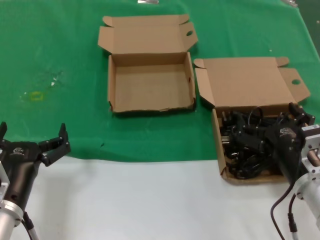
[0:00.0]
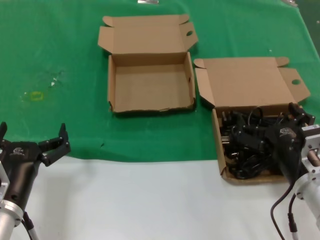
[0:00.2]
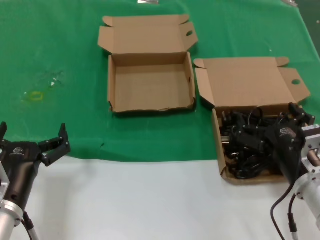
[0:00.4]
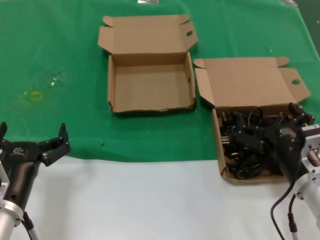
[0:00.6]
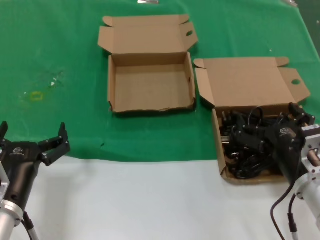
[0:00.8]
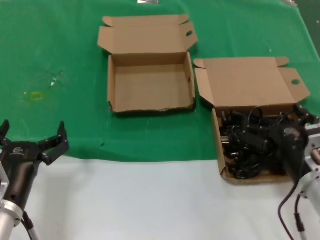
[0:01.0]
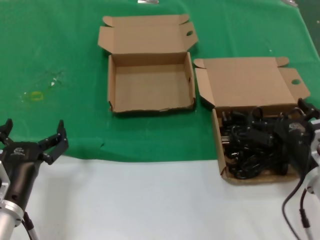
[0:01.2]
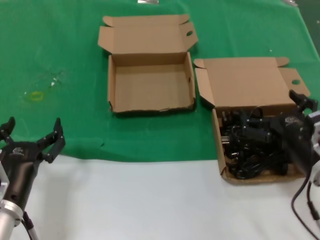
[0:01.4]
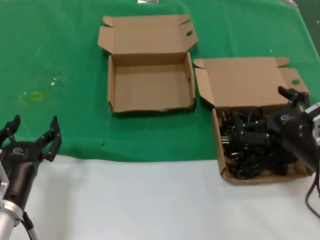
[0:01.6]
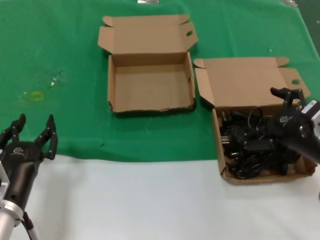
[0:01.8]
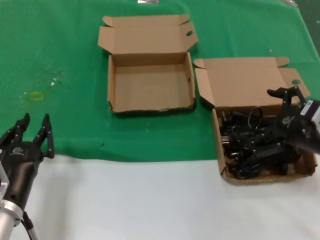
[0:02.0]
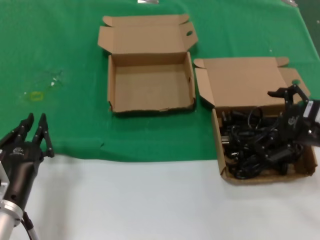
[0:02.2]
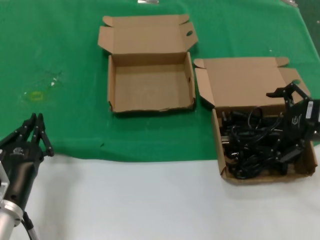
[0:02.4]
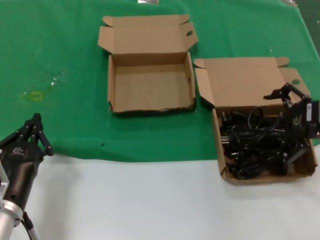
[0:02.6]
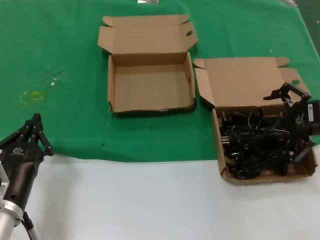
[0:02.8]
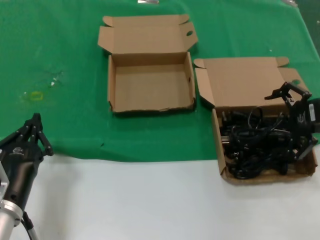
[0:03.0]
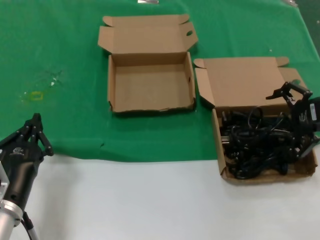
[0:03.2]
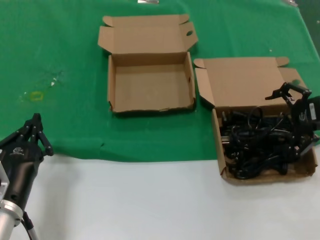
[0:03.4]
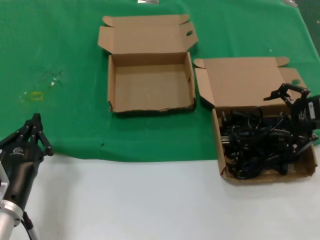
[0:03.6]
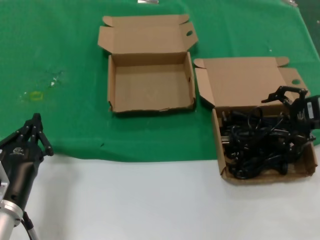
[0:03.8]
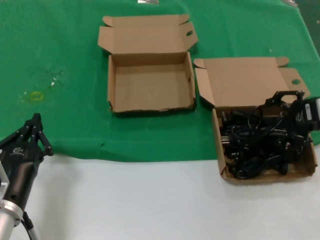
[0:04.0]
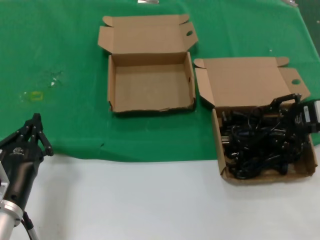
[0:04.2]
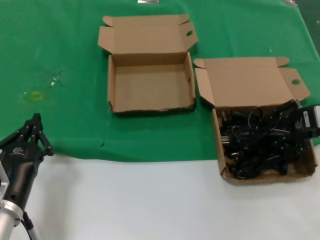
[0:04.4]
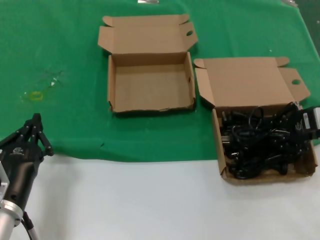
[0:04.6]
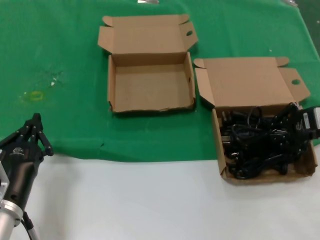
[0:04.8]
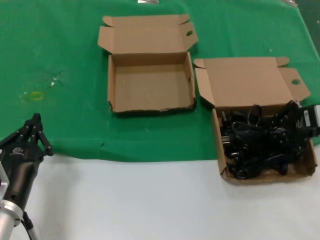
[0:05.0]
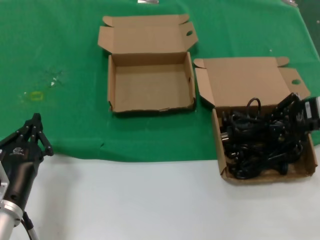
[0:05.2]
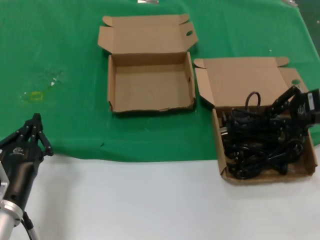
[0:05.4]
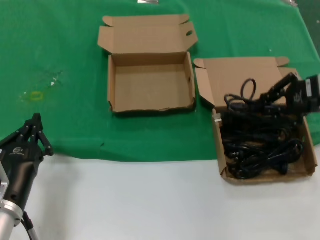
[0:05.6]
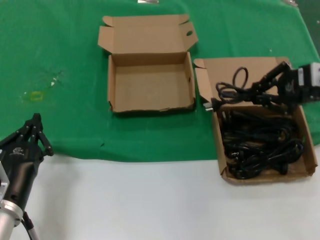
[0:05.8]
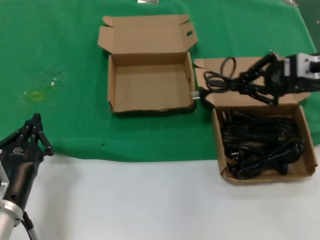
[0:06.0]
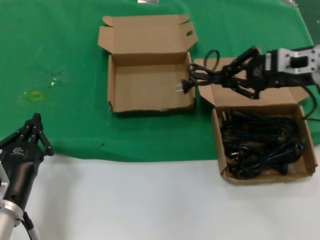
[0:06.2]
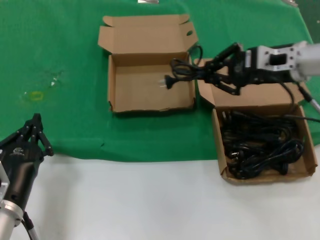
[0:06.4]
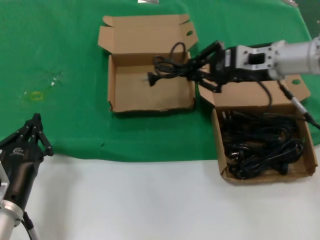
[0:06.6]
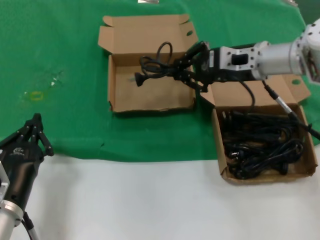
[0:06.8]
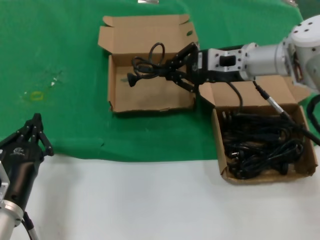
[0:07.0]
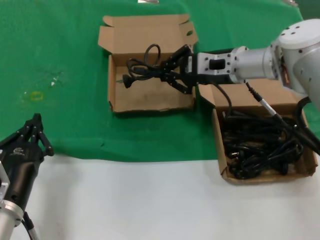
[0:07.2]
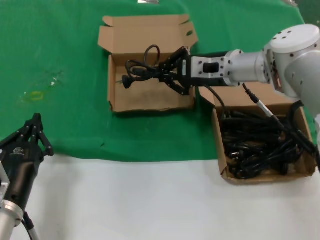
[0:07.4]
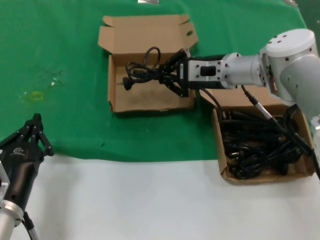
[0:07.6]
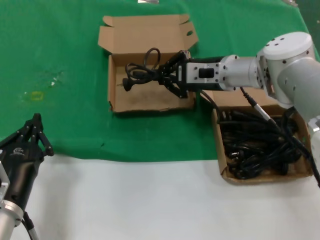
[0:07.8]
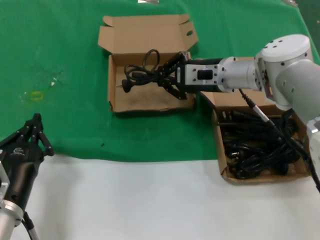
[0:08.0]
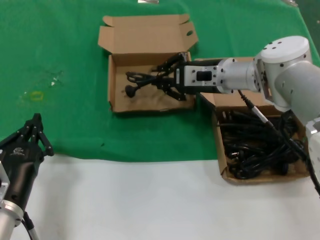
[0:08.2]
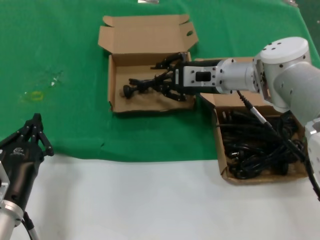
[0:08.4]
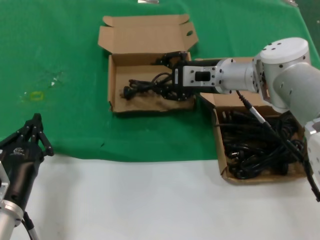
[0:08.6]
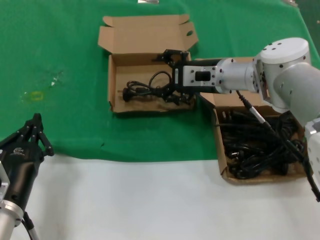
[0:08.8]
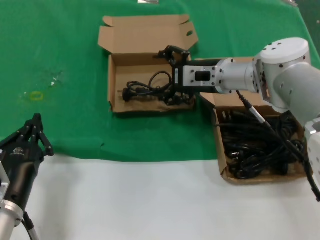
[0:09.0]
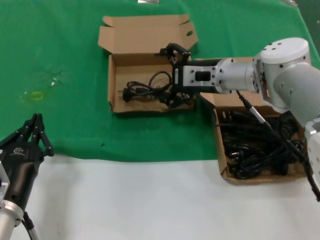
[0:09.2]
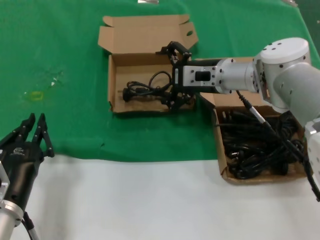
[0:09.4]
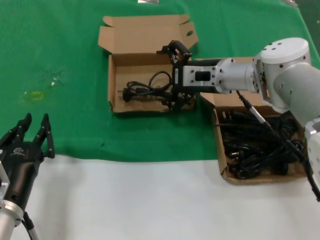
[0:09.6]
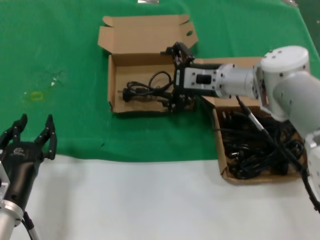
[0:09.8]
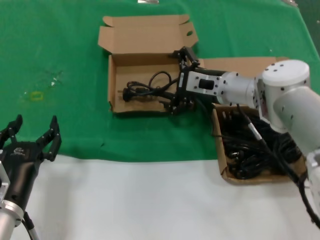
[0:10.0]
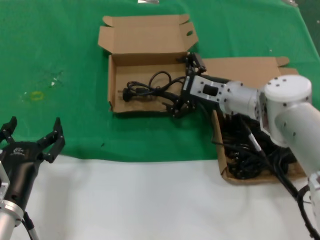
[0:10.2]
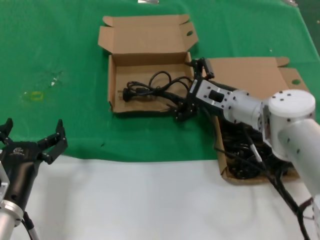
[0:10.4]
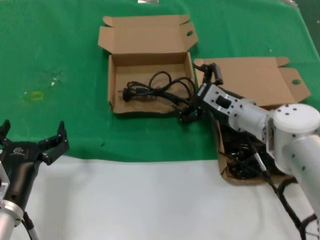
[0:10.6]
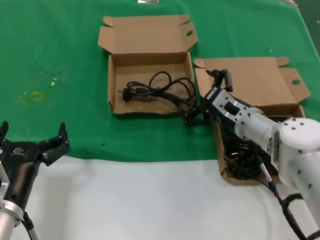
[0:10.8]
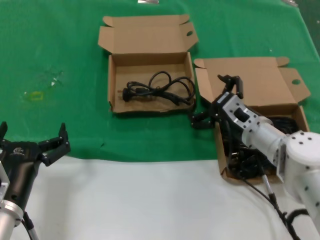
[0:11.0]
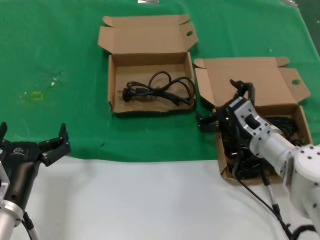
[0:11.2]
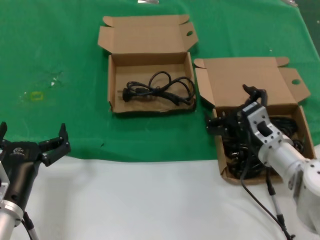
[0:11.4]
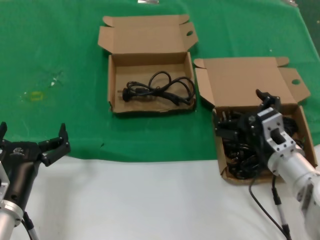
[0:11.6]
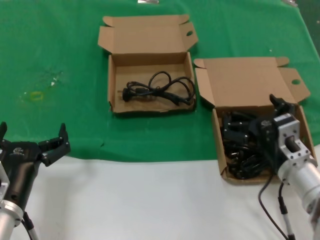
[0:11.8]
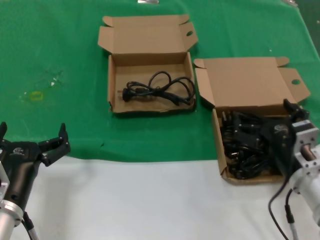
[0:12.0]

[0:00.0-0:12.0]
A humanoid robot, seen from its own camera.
Task of the whole recording: take the parts from the box containing them and put them into an empty box.
Step, 0:00.0 to 0:04.6: Grasp the data cable.
Step, 0:04.8 to 0:08.2: Place the data cable in the another box.
0:00.0 to 0:01.6: The right hand goes approximately 5 cm upward.
0:01.6 to 0:03.0: The right hand goes some 15 cm upward, forward and to the right.
0:03.0 to 0:04.4: There are only small adjustments of the hands.
0:04.4 to 0:06.0: The right hand heads upward, covering approximately 5 cm.
0:06.0 to 0:07.6: The right hand shifts about 20 cm to the left and forward.
0:07.6 to 0:09.0: The hands make only small movements.
0:09.0 to 0:10.4: The right hand travels downward by approximately 5 cm.
0:10.4 to 0:12.0: The right hand moves backward, roughly 20 cm.

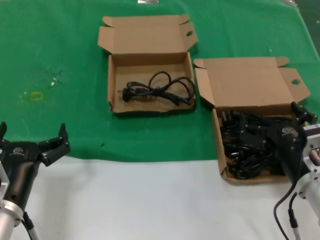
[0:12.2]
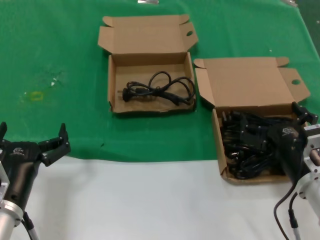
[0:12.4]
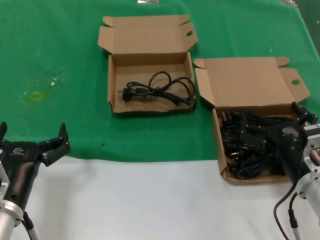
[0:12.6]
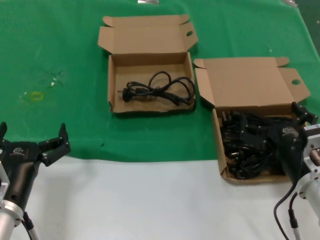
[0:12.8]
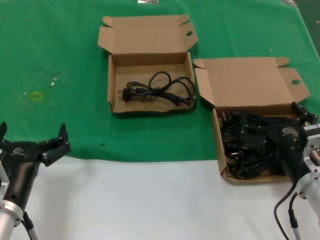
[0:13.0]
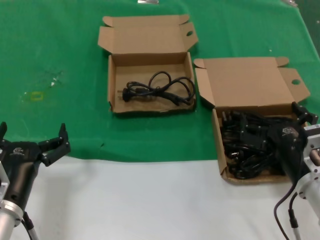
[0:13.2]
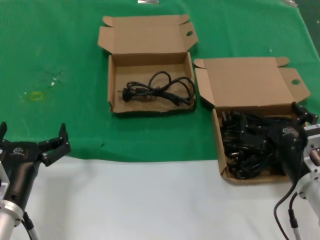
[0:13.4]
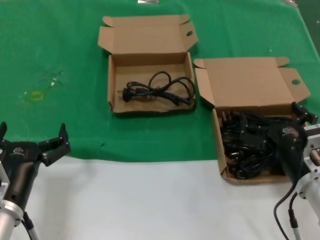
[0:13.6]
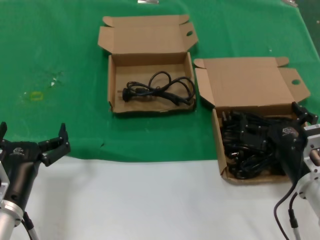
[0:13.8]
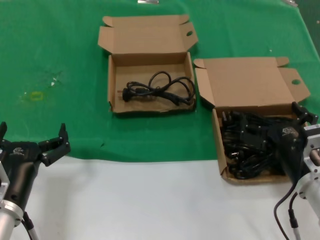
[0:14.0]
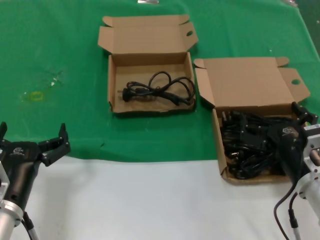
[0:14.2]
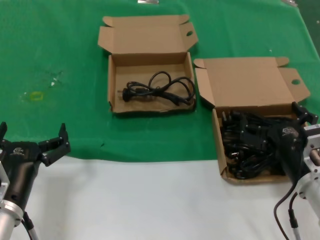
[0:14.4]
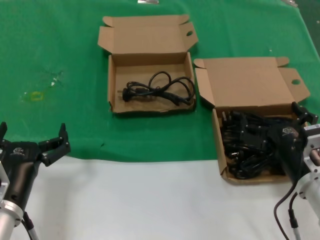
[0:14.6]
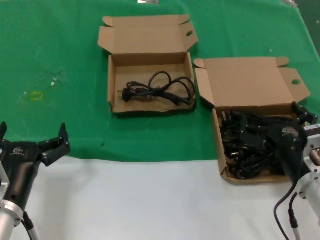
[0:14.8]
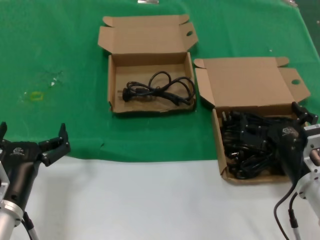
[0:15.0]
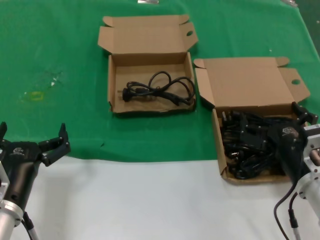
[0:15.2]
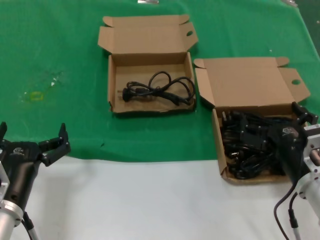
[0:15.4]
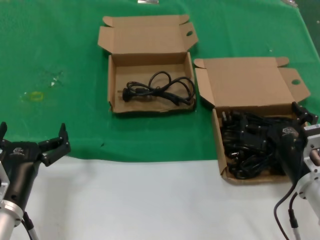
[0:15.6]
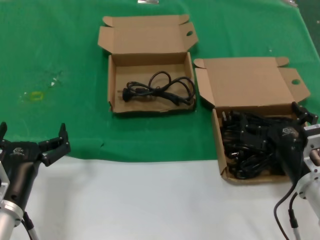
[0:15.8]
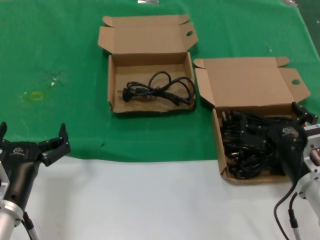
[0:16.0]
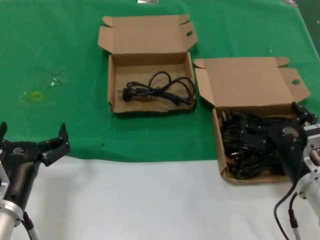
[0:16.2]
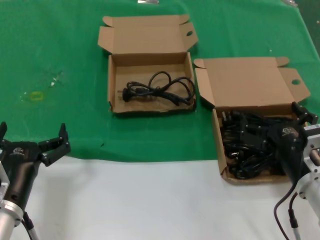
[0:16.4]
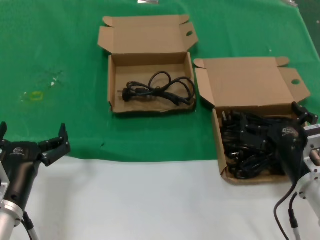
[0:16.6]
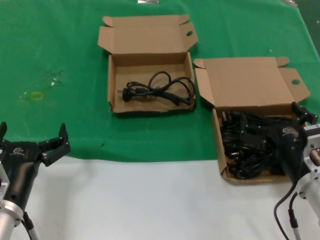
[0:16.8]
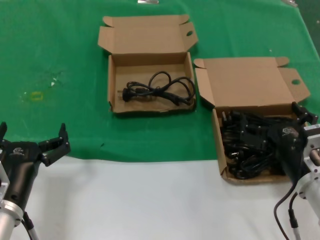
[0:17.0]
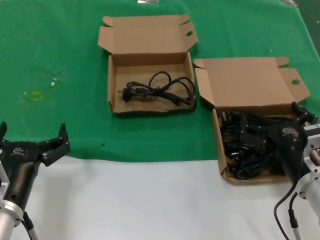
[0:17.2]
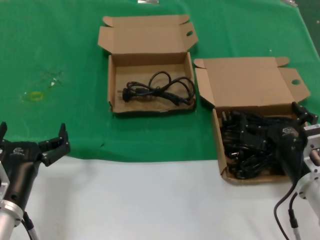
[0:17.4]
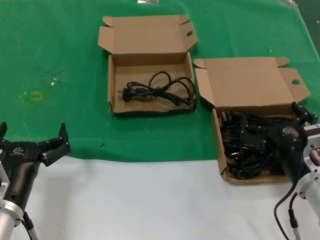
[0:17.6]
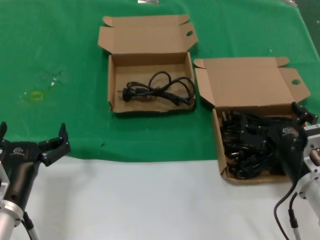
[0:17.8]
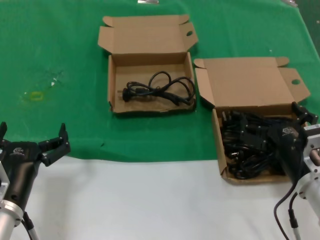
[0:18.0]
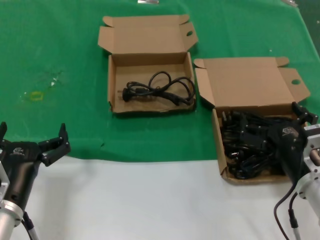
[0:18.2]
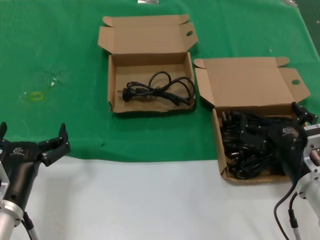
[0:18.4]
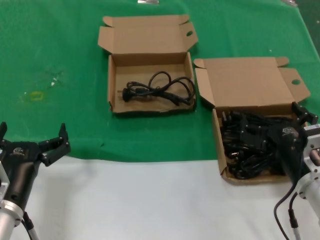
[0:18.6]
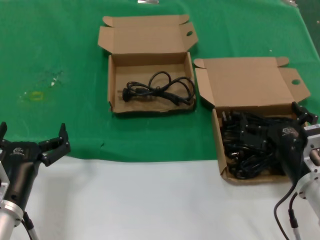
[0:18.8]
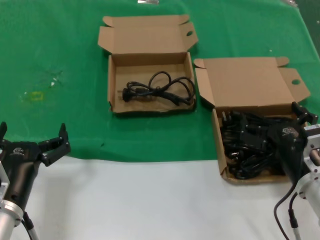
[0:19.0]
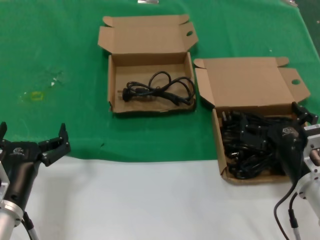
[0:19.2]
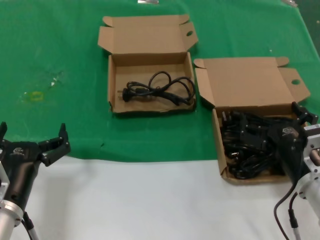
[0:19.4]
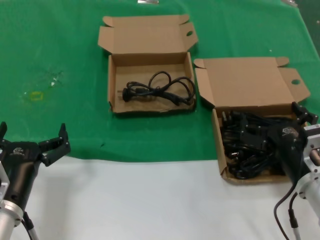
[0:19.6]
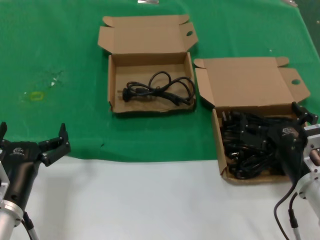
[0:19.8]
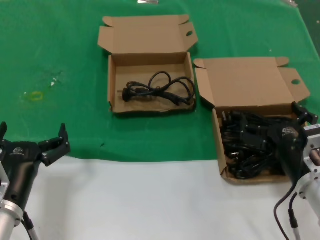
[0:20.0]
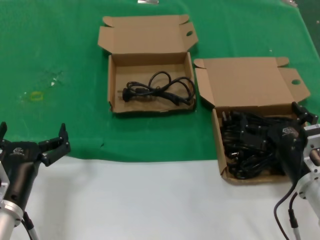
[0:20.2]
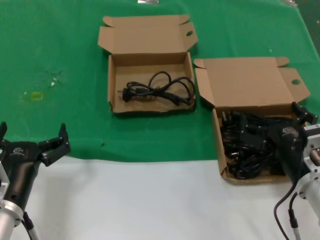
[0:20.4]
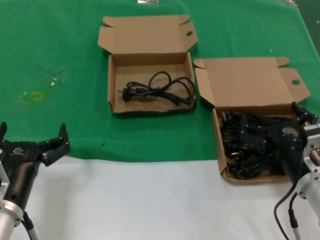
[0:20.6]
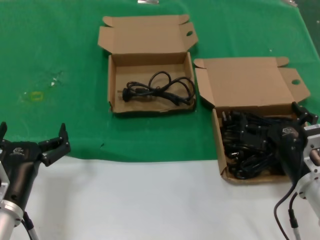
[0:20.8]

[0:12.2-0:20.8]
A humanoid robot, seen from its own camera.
Task of the whole recording: take the parts from the box containing them and put them into an empty box.
0:12.2 to 0:20.8: Both hands stay about where they are.
